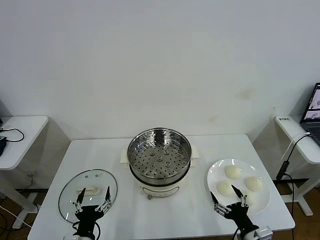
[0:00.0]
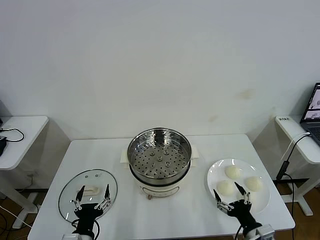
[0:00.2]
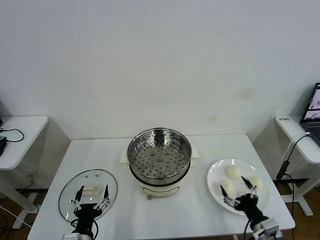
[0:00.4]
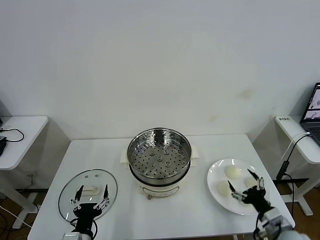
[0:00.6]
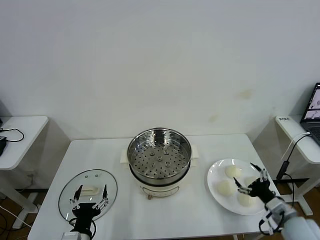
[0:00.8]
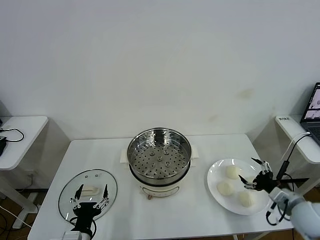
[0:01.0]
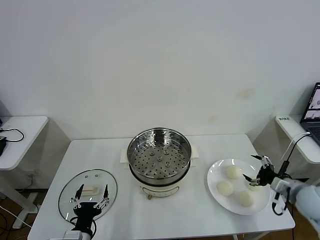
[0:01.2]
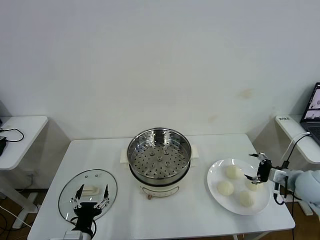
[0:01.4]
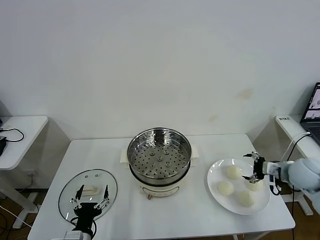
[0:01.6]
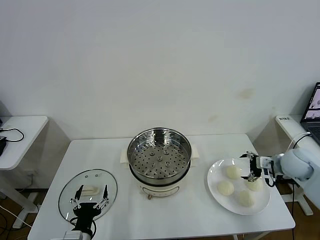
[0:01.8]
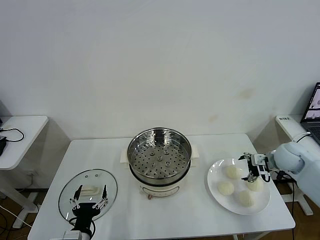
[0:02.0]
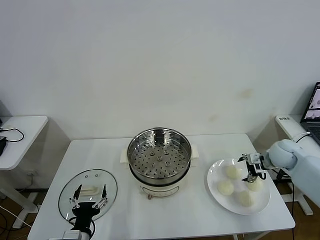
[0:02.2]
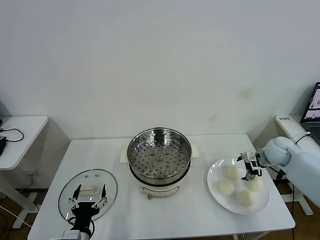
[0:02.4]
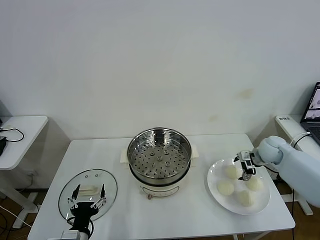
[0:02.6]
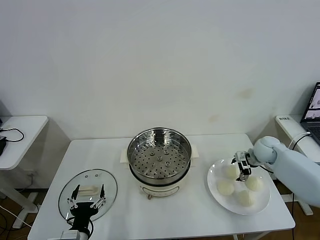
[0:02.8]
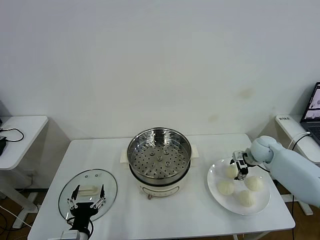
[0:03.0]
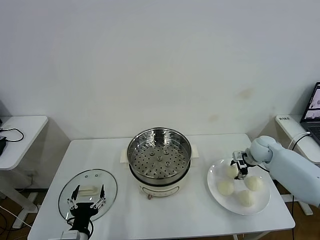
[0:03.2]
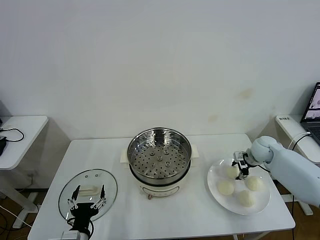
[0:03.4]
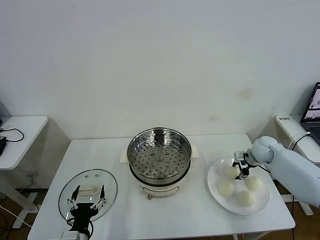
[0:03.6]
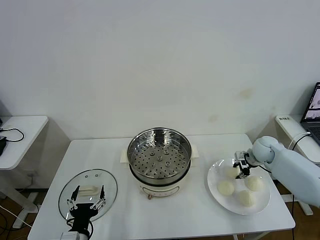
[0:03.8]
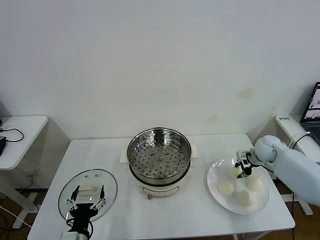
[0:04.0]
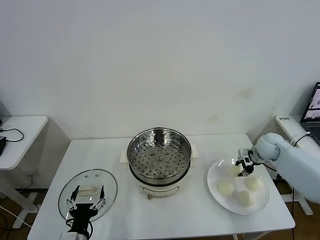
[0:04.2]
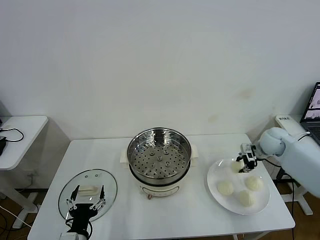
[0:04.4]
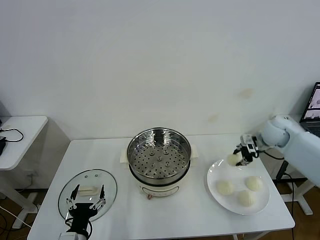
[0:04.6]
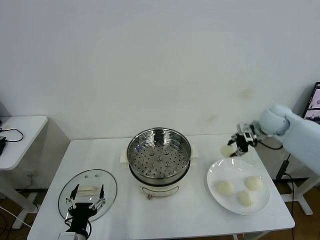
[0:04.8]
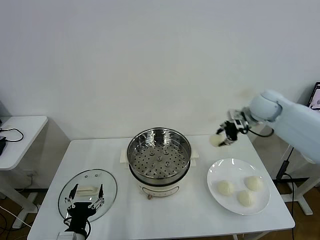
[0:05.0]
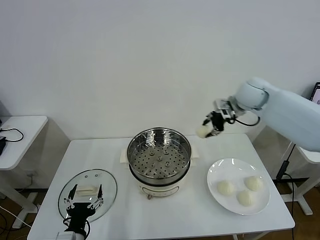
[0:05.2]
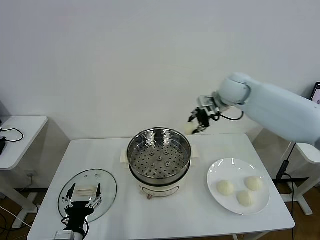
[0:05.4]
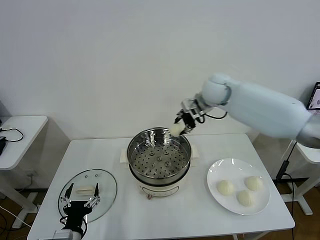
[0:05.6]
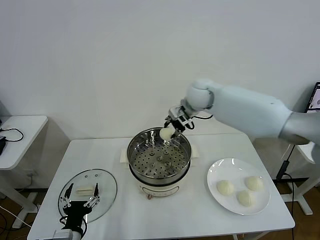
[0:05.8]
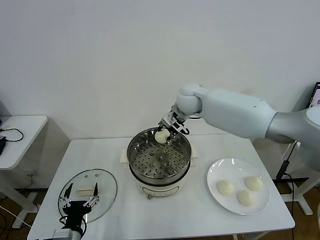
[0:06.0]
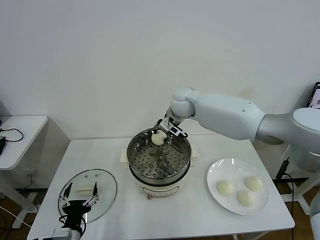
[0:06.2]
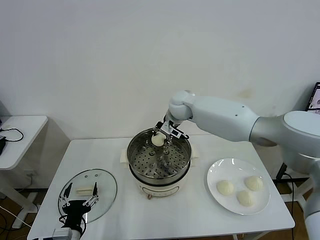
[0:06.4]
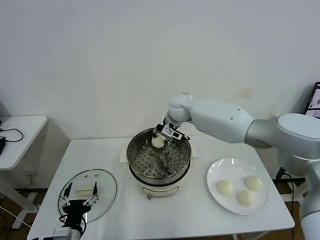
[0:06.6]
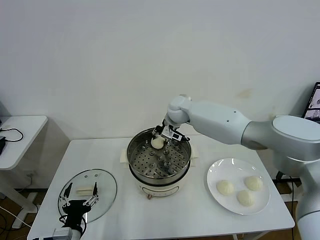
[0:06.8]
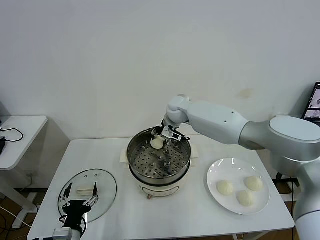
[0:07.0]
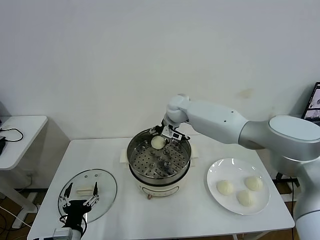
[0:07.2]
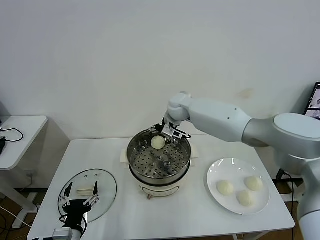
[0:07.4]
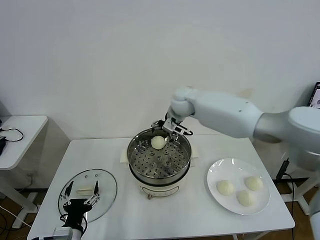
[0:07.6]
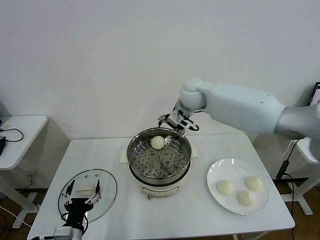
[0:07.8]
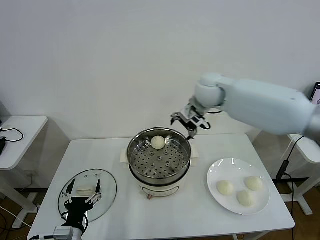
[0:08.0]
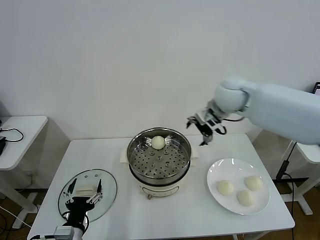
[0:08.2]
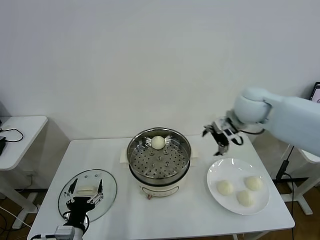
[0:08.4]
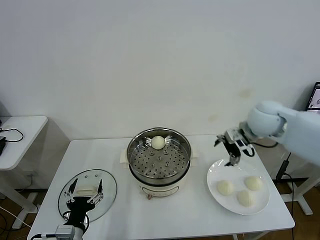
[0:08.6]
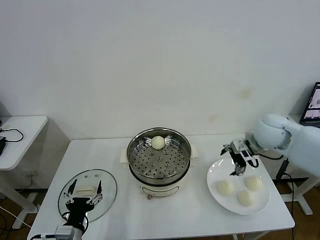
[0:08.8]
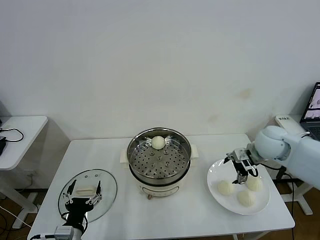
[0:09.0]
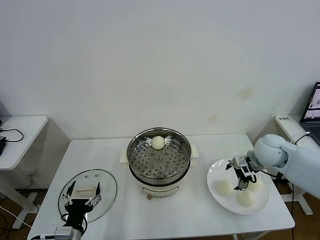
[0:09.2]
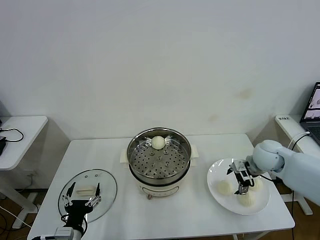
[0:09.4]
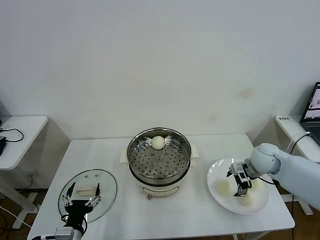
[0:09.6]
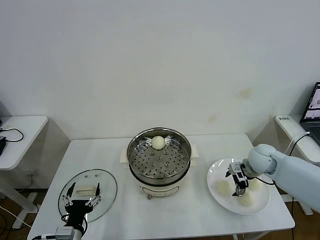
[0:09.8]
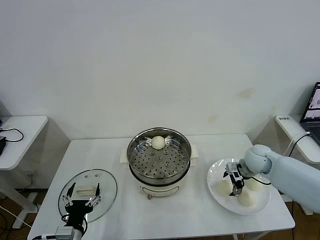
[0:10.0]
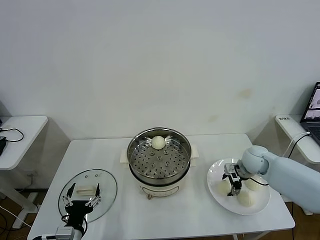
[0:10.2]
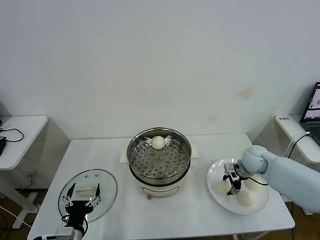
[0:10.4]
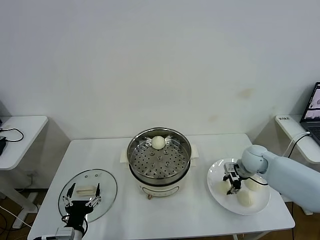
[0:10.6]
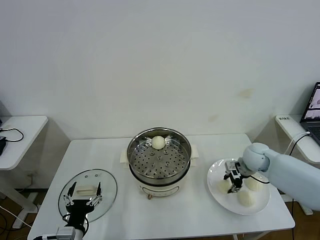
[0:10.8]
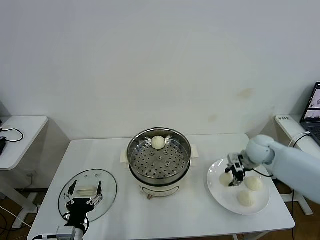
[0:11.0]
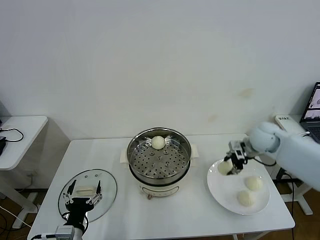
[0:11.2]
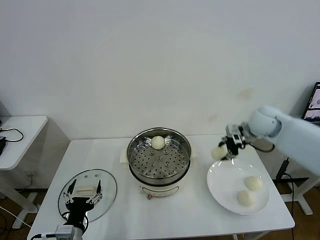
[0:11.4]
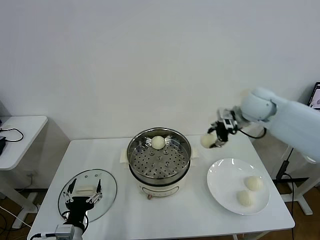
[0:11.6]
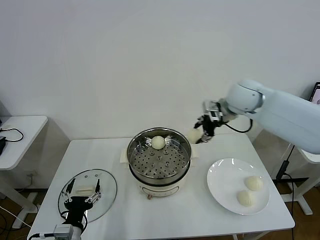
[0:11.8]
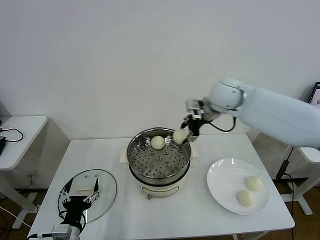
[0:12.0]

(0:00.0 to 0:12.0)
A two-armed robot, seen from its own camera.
Task of the whole recording: take steamed baozi put them in steamer then cover it.
Step, 0:00.0 - 0:03.4: Grasp the baozi in the plate with right gripper.
Step, 0:03.8 - 0:07.2: Place the baozi on the steamer with right gripper.
Step, 0:07.4 - 0:10.4: Grasp the baozi in the plate with right gripper.
0:01.6 - 0:03.0: The right gripper travels forward by approximately 15 cm.
0:03.0 - 0:04.4: The right gripper is displaced upward by about 5 cm, and closes its fingers.
0:04.4 - 0:06.0: The right gripper is displaced to the left and upward by roughly 35 cm.
0:06.0 - 0:07.6: The right gripper opens up.
0:07.6 - 0:09.0: The right gripper heads to the right and backward, covering approximately 30 cm.
0:09.0 - 0:10.4: The right gripper shifts about 10 cm downward, and closes up.
0:10.4 - 0:12.0: The right gripper heads upward and to the left, covering about 30 cm.

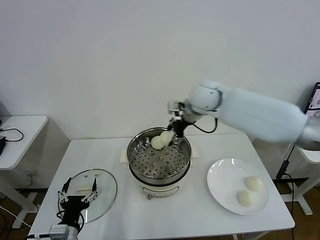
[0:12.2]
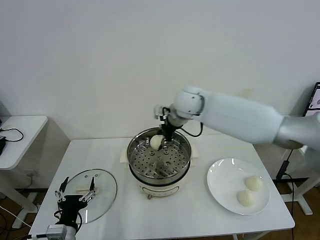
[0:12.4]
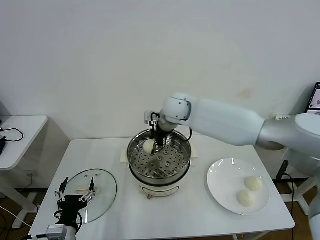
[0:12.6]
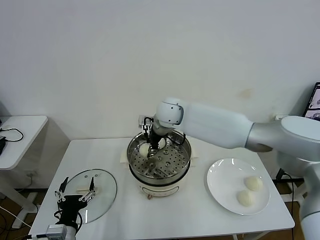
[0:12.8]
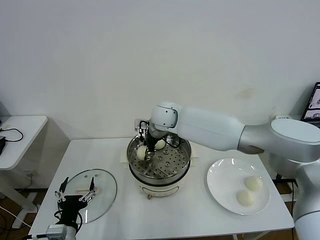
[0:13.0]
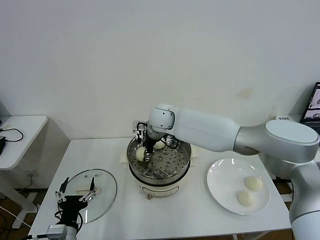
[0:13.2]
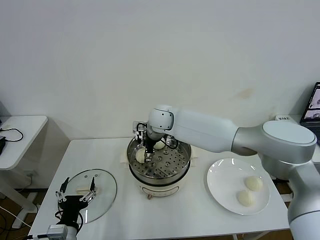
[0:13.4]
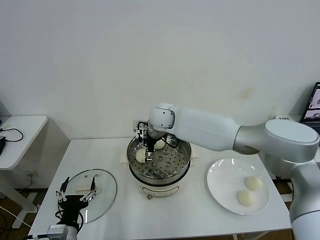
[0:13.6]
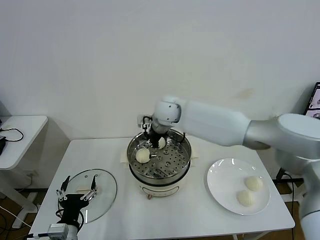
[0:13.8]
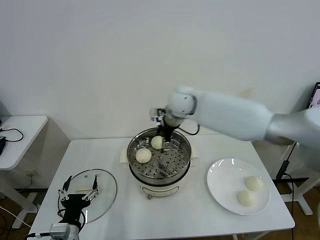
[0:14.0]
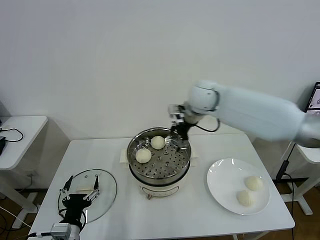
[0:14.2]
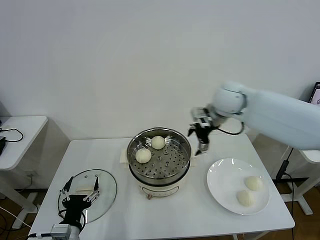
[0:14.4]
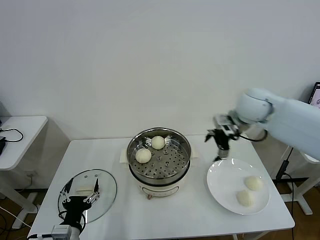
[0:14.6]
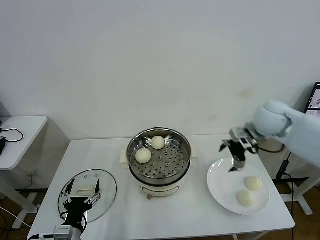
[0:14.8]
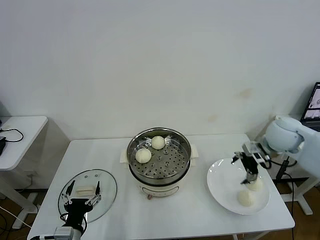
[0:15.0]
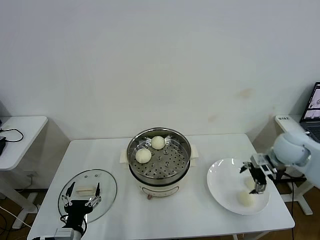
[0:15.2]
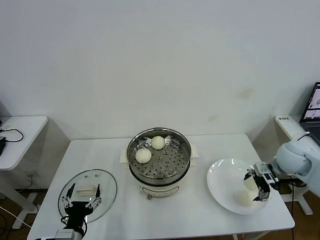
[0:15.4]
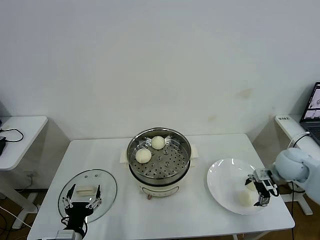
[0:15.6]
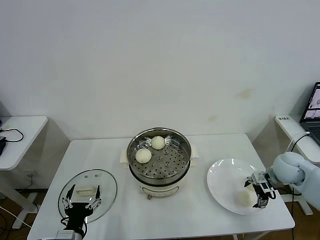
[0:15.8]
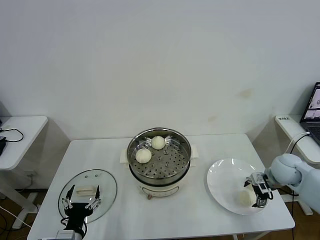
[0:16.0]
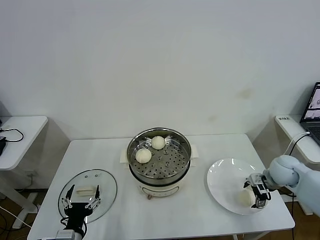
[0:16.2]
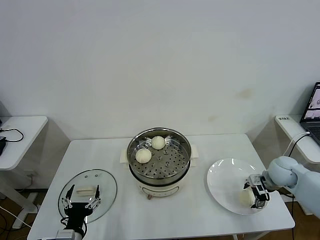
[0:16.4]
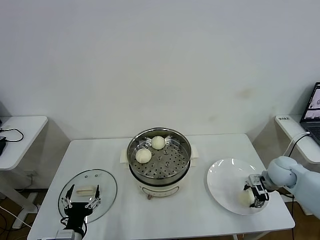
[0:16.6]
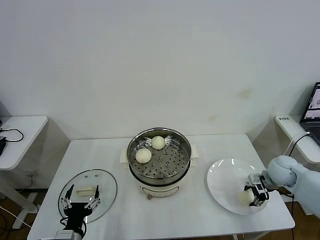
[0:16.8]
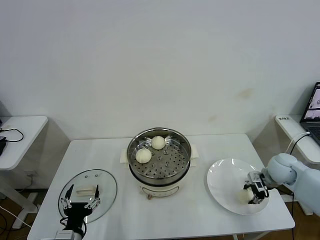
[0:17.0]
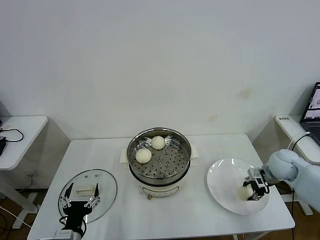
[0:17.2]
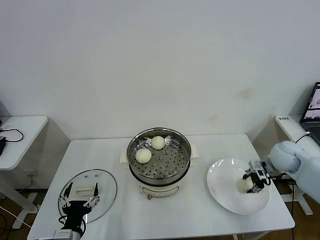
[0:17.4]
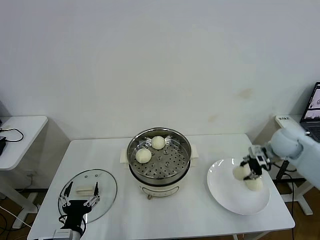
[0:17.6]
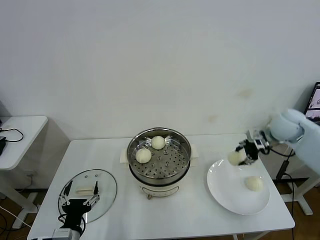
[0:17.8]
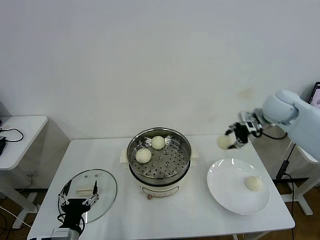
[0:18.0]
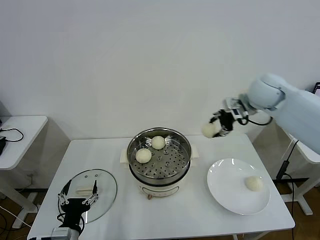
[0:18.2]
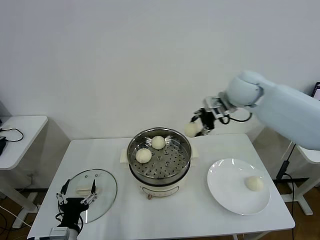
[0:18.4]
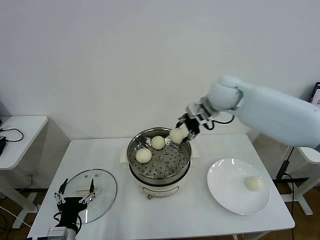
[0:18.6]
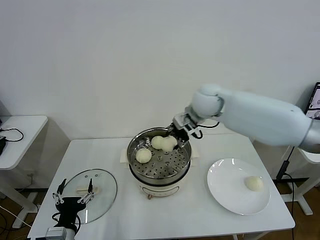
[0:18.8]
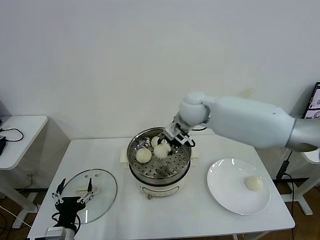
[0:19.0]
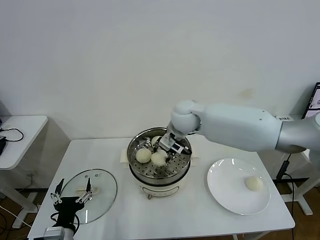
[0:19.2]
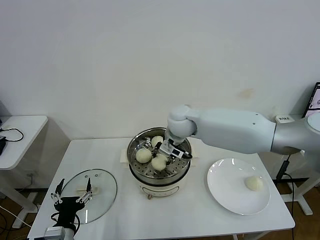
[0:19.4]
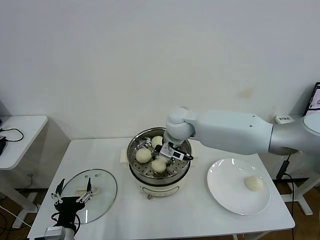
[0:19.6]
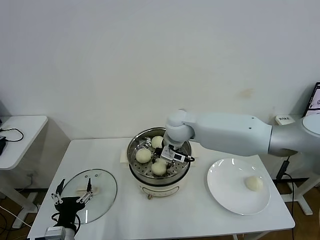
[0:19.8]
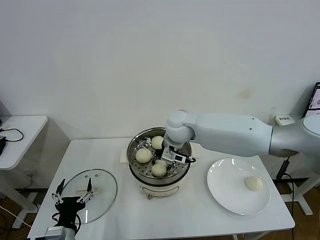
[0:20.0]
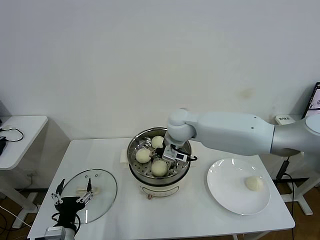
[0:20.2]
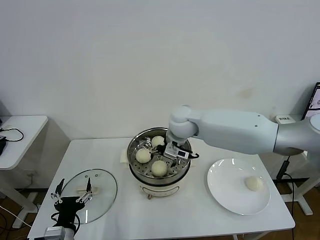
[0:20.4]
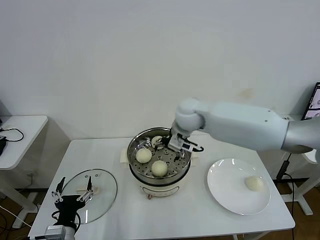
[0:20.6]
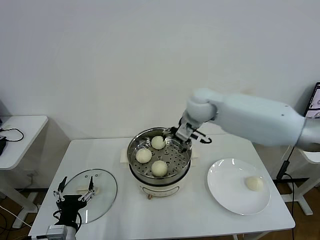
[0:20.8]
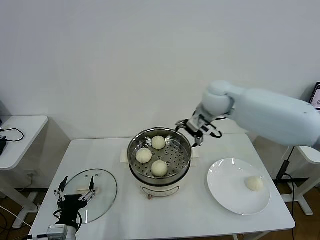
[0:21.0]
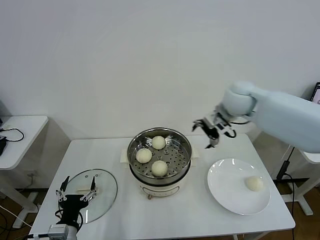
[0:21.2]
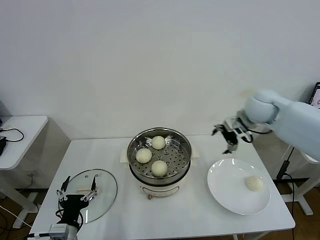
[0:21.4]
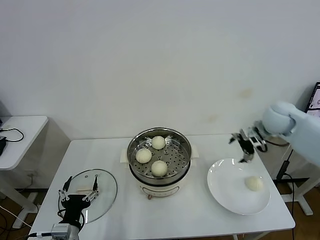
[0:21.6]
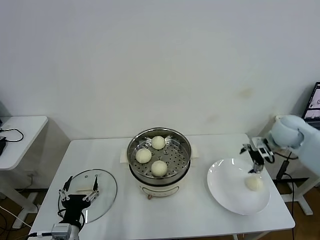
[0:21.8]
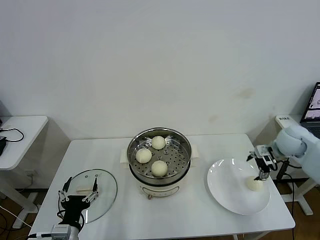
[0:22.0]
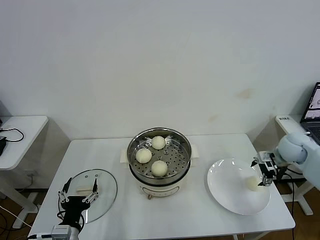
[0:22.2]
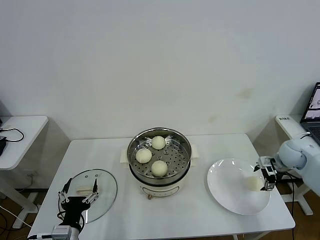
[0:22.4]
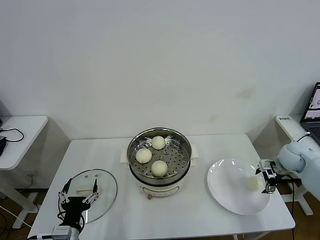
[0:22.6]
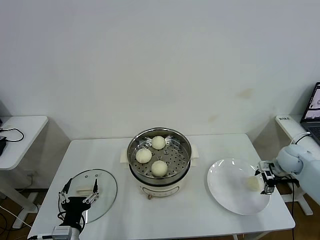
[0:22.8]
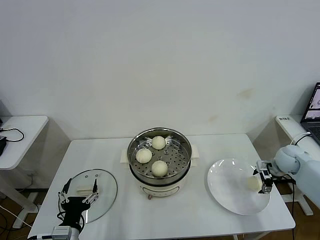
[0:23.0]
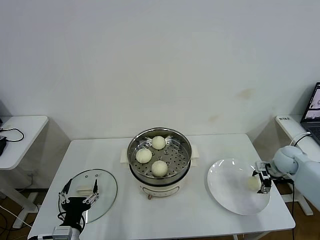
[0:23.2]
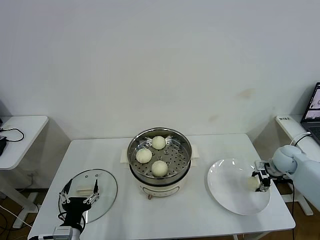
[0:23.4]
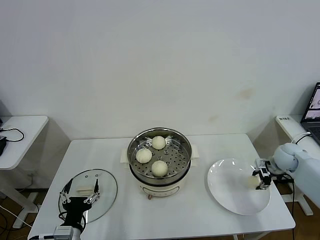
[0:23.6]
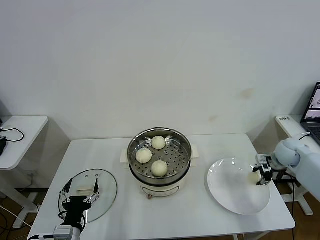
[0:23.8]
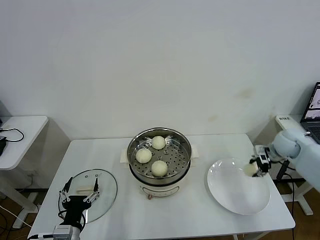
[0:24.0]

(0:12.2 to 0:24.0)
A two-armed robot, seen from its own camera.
Task of the whole recording: take steamed baozi put them in steamer then cover it.
Step, 0:13.6 - 0:16.6: Grasp the baozi in the plate with right gripper.
Step, 0:17.0 - 0:20.2: Place the baozi on the steamer with right gripper.
Step, 0:20.4 - 0:23.4: Grasp the baozi in the plate with right gripper.
0:12.2 - 0:13.6: The right gripper shifts roughly 15 cm to the left and downward, and opens.
0:13.6 - 0:15.2: The right gripper moves to the right, approximately 40 cm.
0:15.2 - 0:16.6: The right gripper goes about 10 cm downward.
0:16.6 - 0:18.2: The right gripper is displaced upward, to the left and forward by roughly 30 cm, and closes up.
0:18.2 - 0:19.6: The right gripper goes some 25 cm to the left and downward.
0:19.6 - 0:21.0: The right gripper is displaced to the right and upward by approximately 15 cm, and opens.
0:21.0 - 0:22.6: The right gripper moves to the right and downward, some 35 cm.
0:22.6 - 0:24.0: The right gripper closes up.
